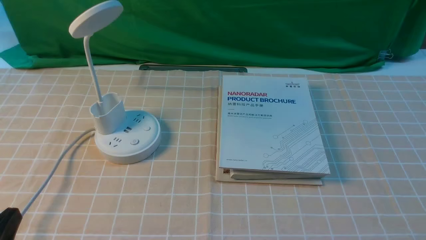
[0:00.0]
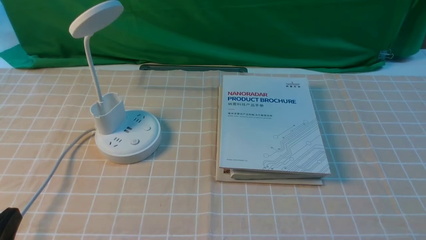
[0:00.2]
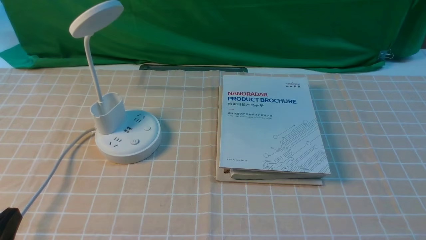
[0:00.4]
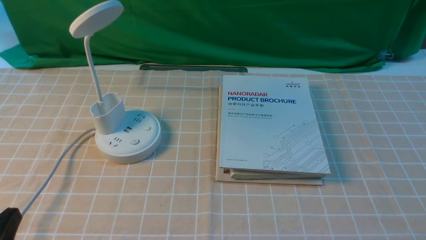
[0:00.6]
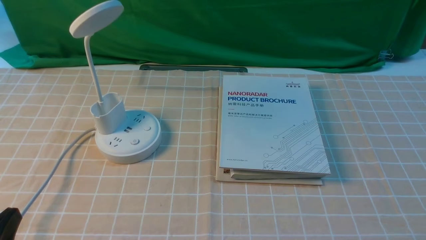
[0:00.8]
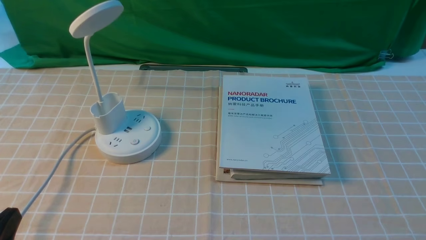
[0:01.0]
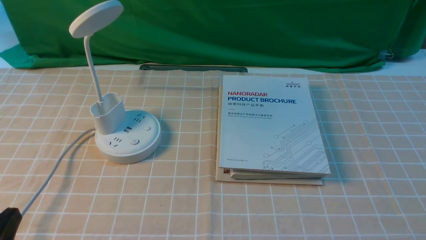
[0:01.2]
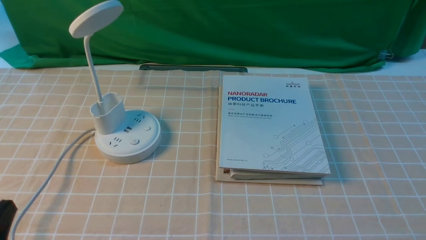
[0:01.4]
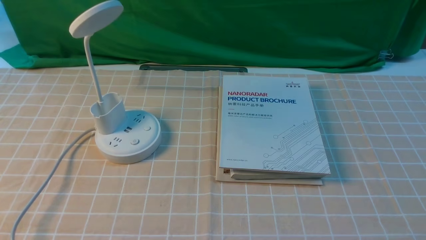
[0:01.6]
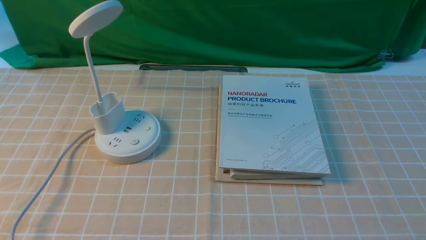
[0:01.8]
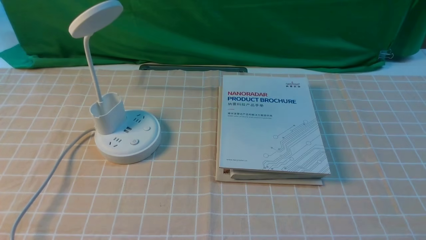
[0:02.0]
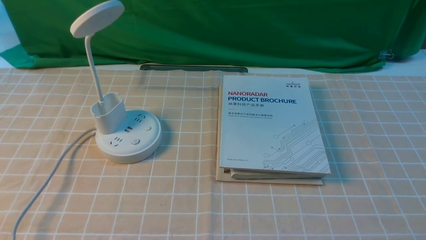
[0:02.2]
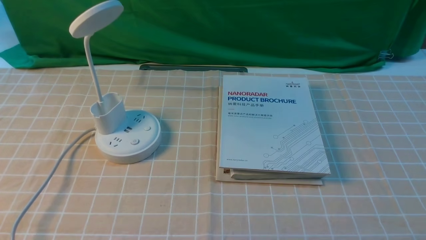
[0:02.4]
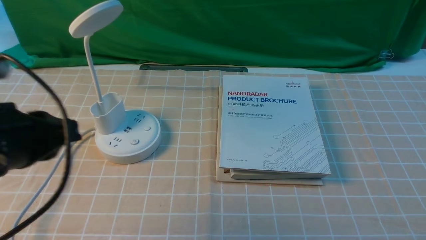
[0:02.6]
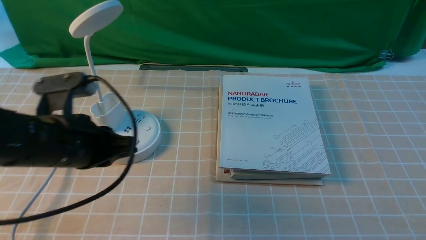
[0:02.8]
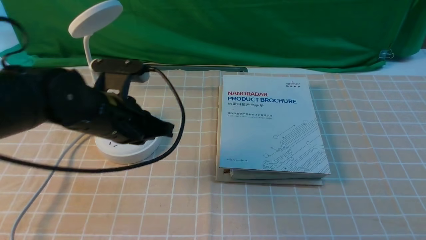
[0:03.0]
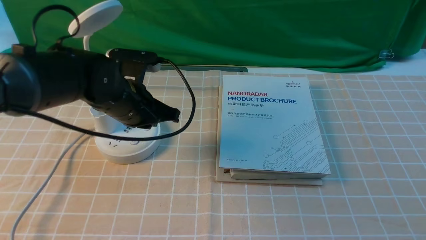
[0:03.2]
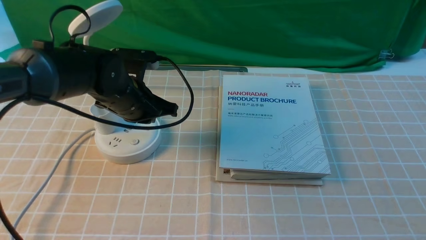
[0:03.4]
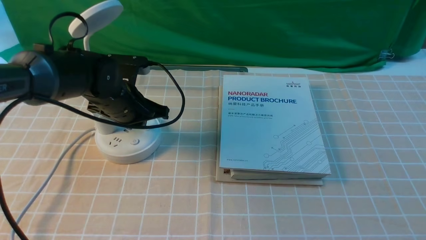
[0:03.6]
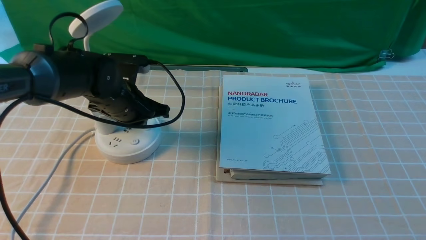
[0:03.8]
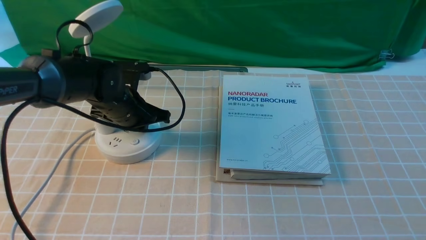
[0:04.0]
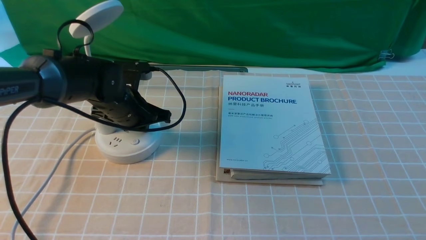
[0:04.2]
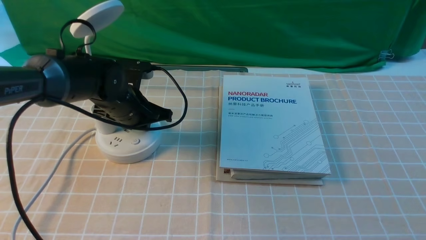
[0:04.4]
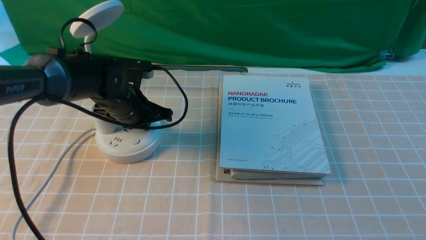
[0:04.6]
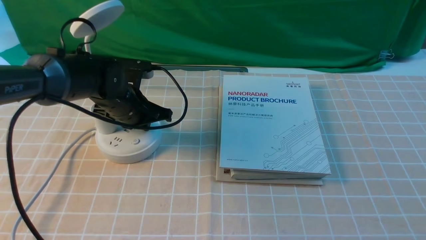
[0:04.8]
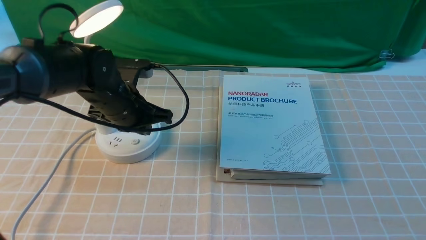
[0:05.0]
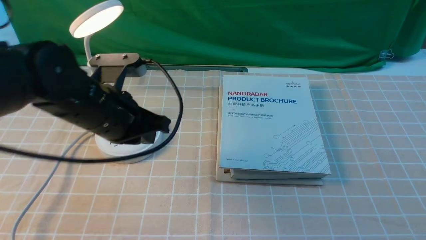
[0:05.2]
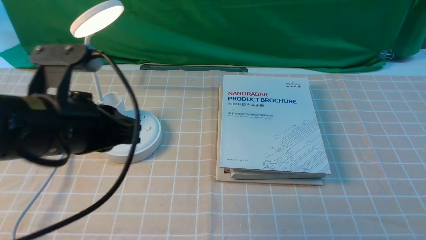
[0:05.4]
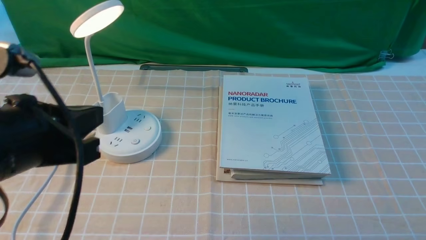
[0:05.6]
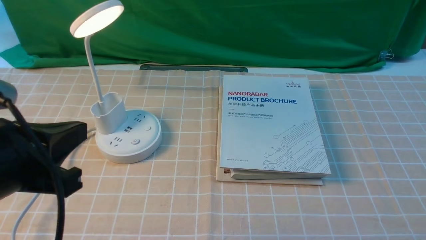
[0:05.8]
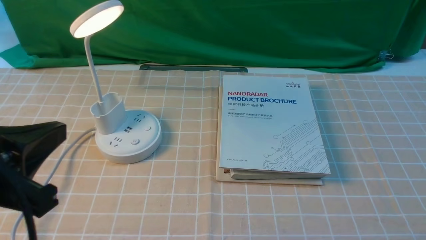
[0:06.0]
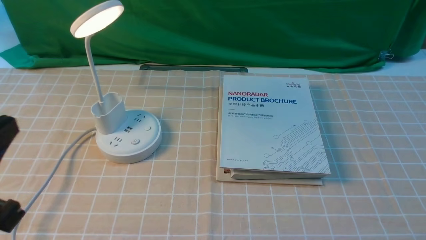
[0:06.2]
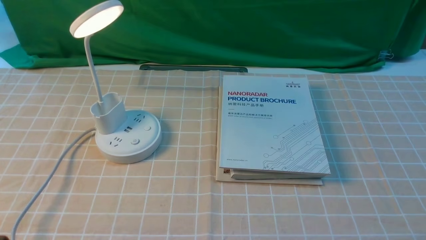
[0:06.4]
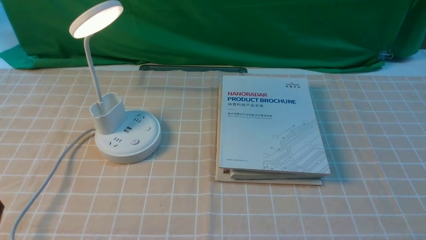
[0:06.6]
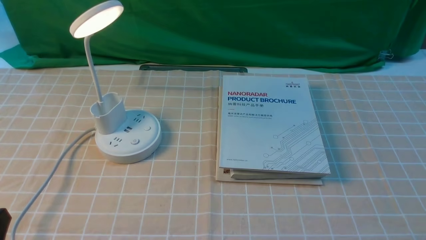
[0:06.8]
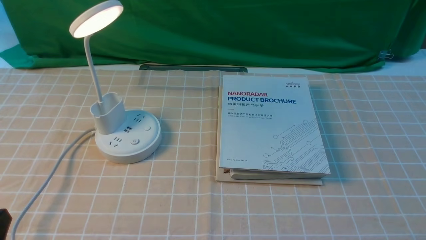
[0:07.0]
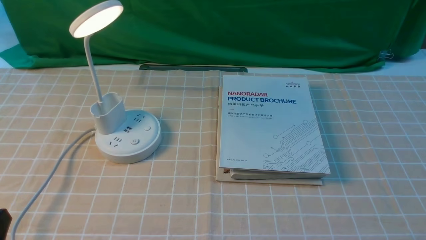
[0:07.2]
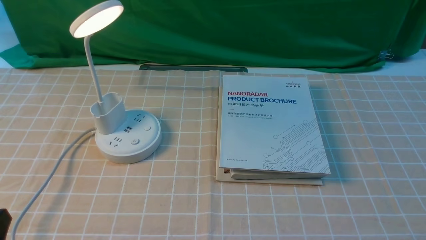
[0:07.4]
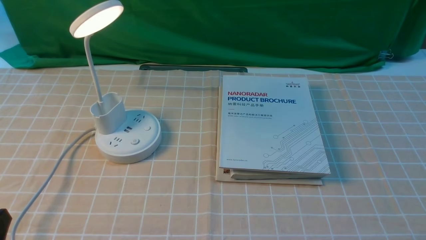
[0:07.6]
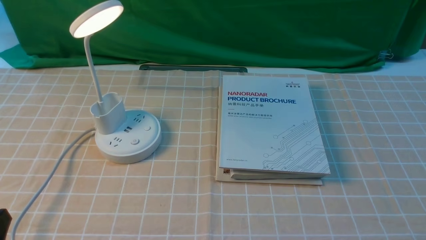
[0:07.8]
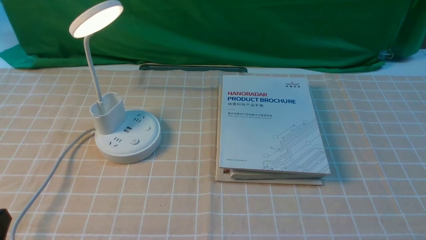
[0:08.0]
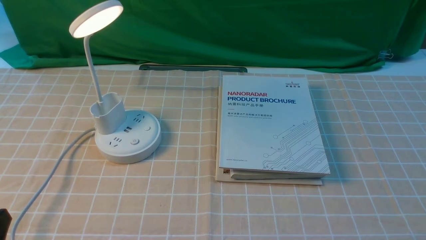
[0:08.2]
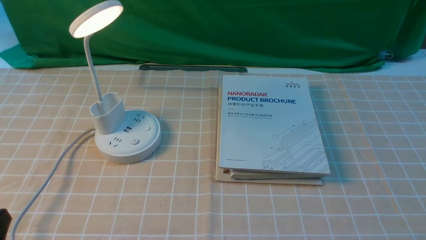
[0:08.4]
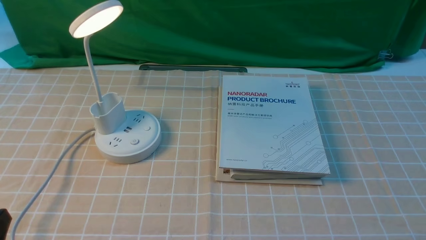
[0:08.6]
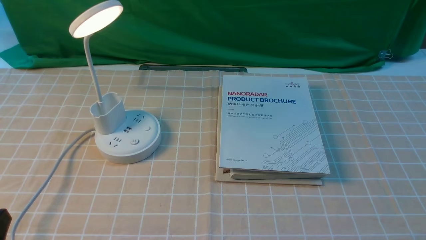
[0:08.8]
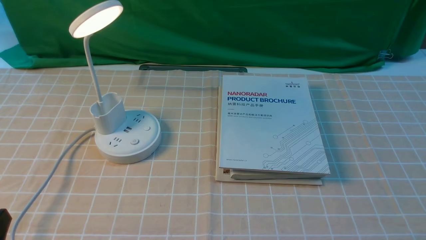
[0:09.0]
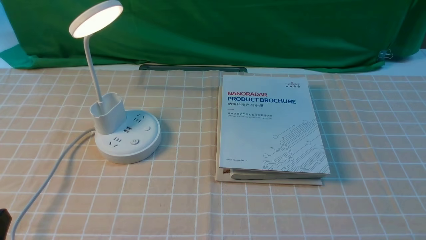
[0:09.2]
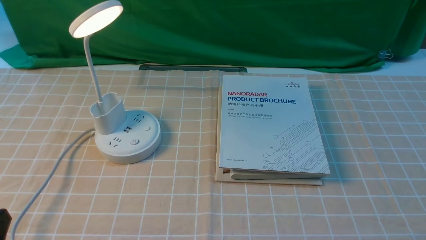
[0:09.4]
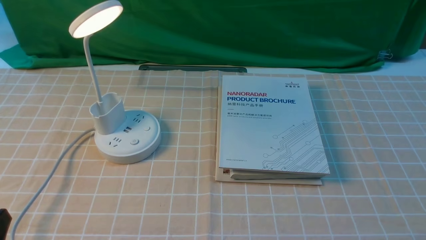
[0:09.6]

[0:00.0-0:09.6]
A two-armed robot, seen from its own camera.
Step, 0:00.0 to 0:05.2: use the left arm to press the button switch on the lamp holder.
0:01.6 to 0:03.2: The left gripper is displaced forward and to the right by roughly 30 cm, and closes.
0:03.2 to 0:04.8: The left gripper shifts by some 5 cm.
0:04.8 to 0:06.4: The left gripper heads backward, covering about 30 cm, and opens up.
0:08.0 to 0:09.6: Both grippers stay about where they are.
